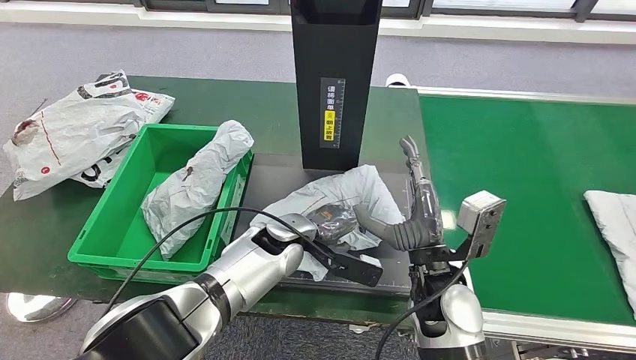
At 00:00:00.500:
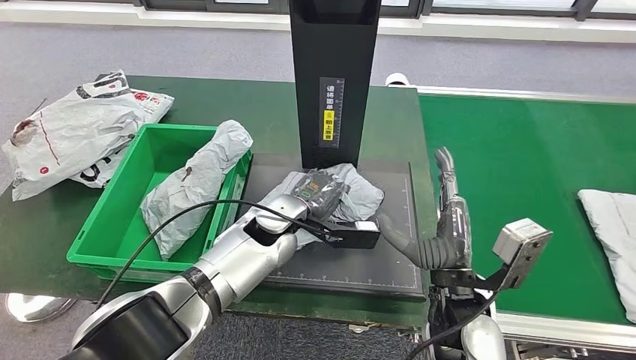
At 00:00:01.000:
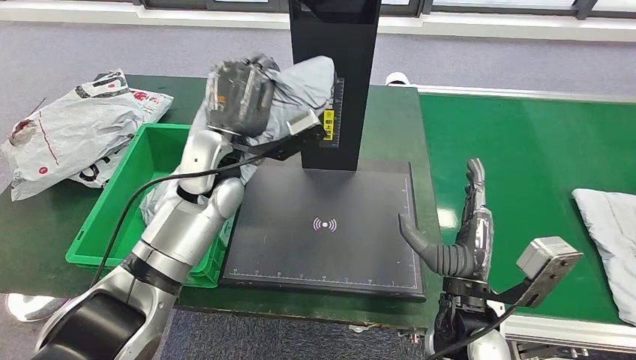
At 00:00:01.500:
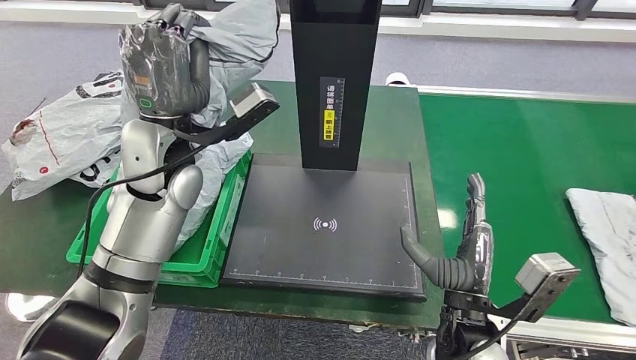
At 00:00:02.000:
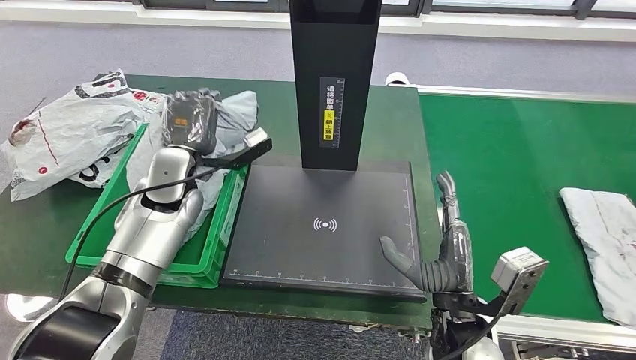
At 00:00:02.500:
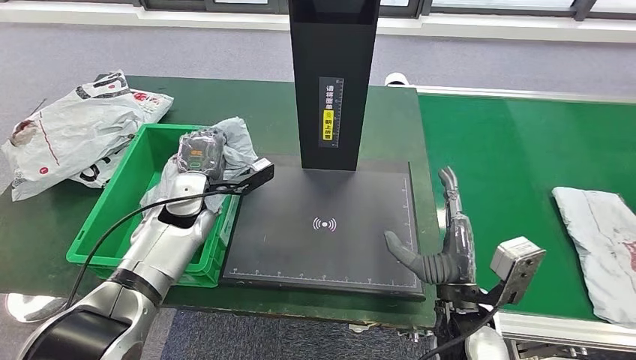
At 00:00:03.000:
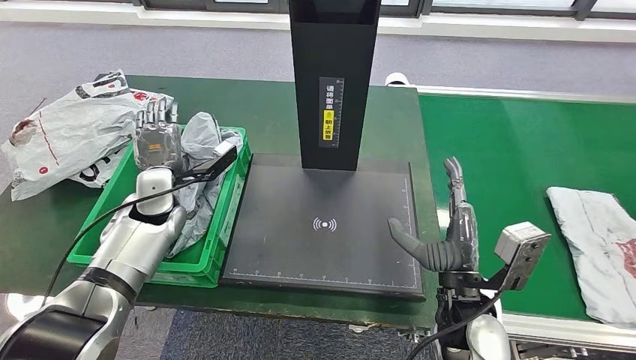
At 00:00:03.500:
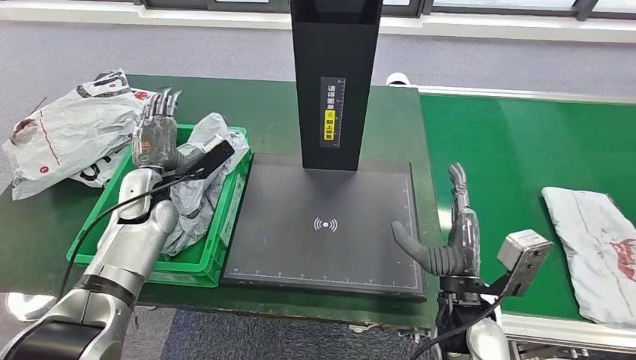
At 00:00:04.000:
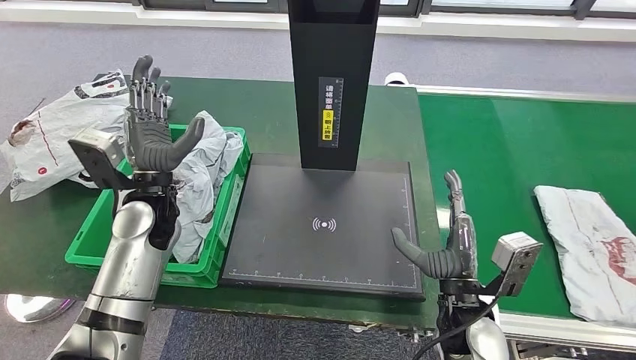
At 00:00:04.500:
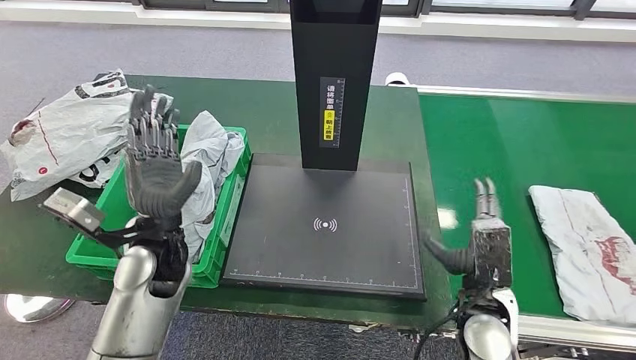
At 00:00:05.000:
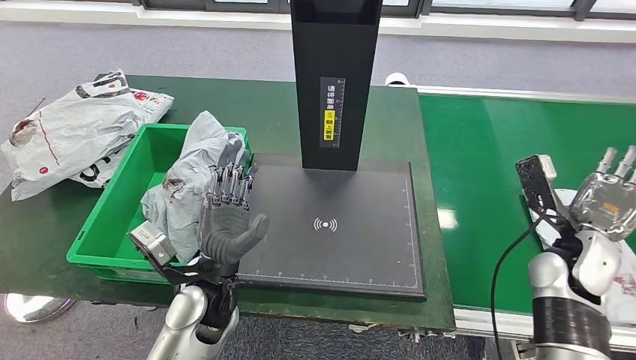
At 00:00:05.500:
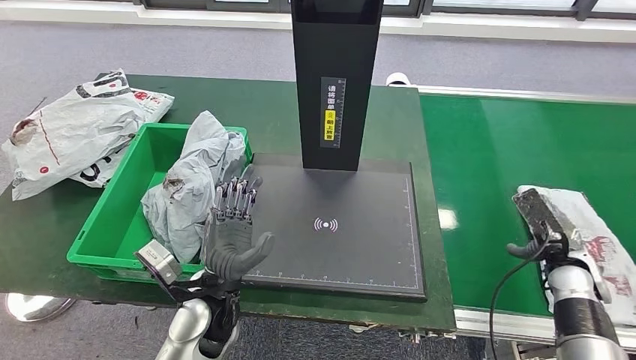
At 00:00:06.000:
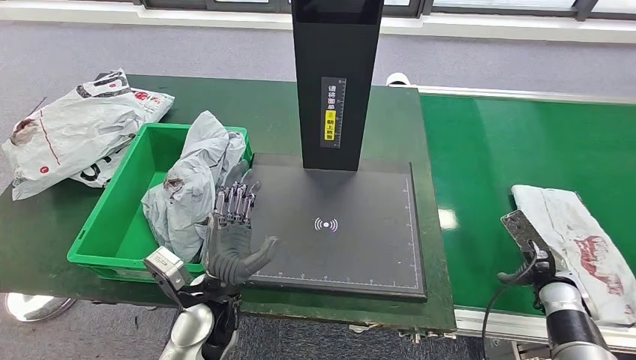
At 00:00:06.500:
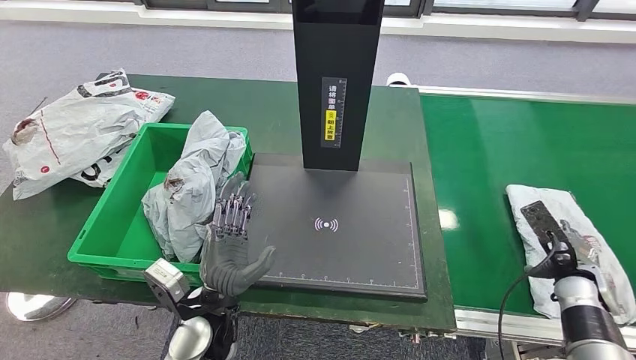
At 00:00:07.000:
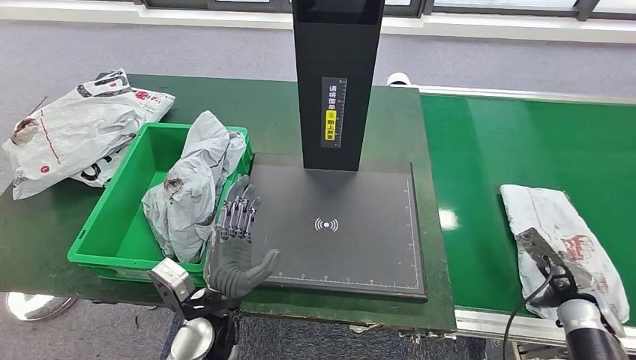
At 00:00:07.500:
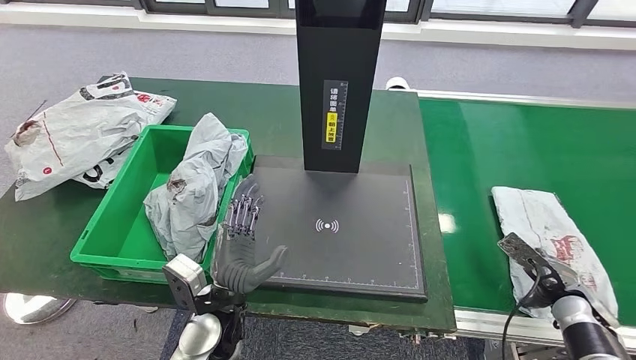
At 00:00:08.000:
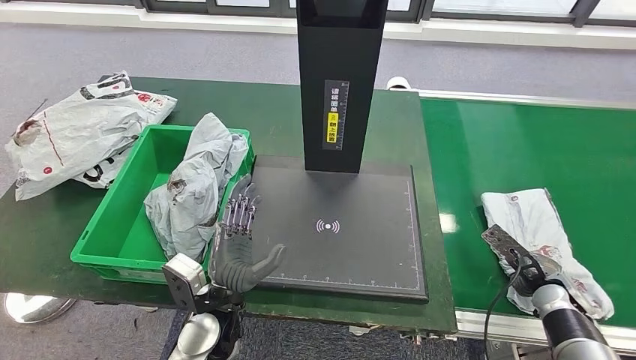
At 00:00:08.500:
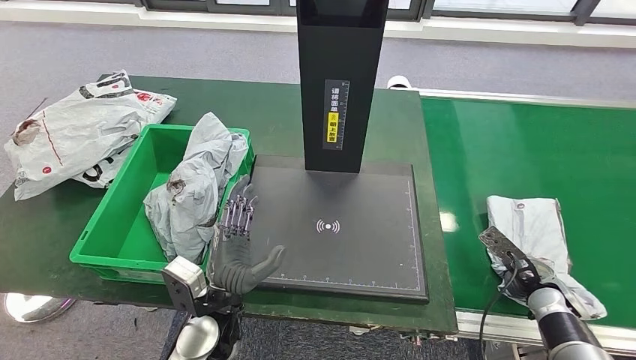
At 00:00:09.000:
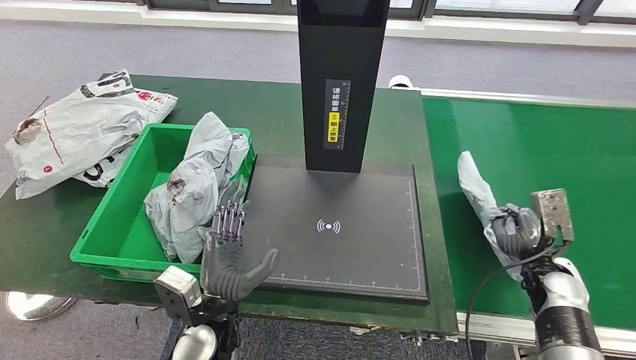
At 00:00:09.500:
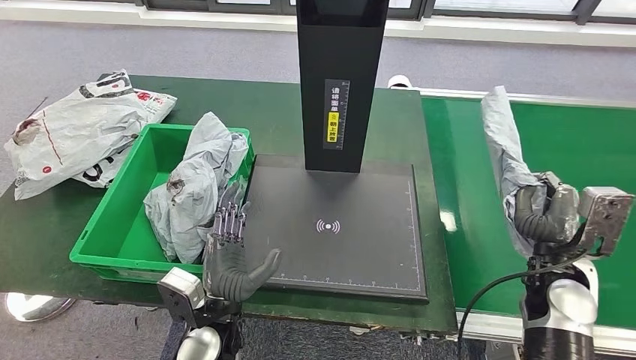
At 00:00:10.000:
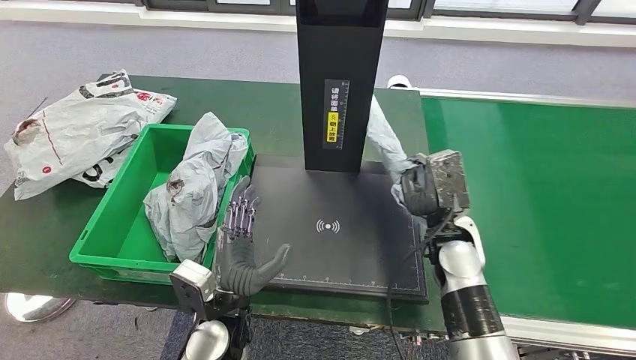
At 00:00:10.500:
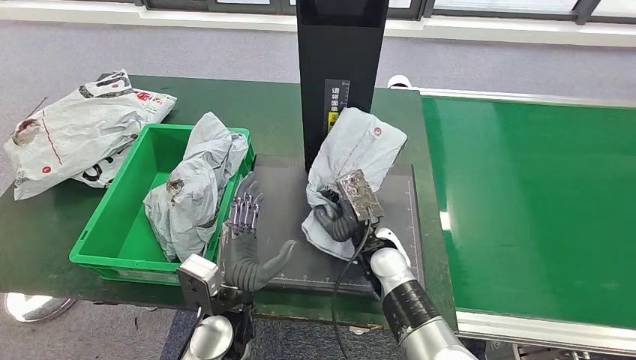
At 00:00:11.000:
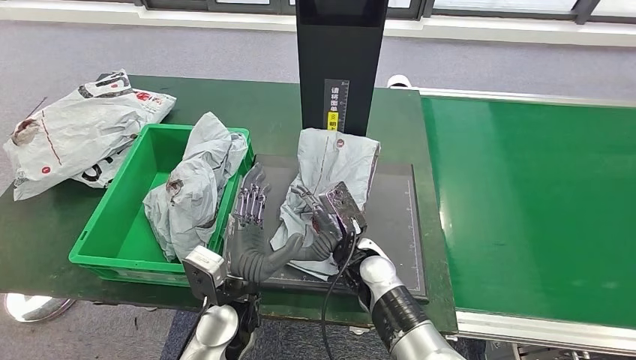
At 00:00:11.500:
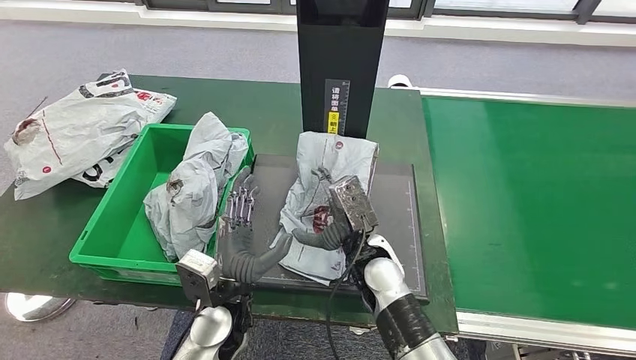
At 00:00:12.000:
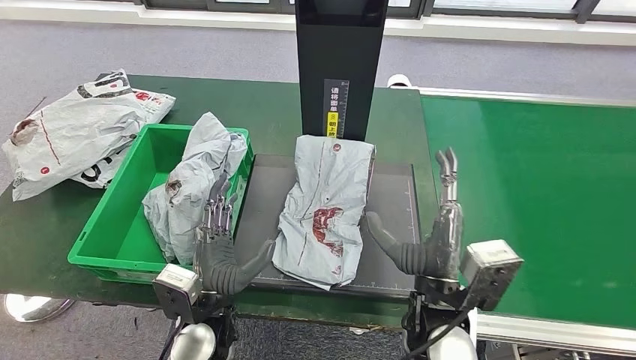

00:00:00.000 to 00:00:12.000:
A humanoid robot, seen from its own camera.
Step, 00:00:01.000 to 00:00:04.000: Place the parcel into the delivery box.
Step, 00:00:04.500 to 00:00:09.500: Pick up the parcel from the conveyor belt.

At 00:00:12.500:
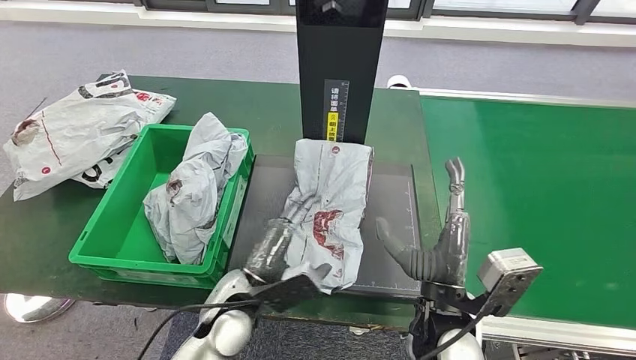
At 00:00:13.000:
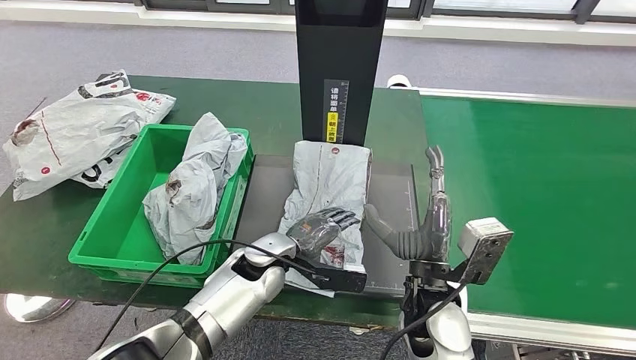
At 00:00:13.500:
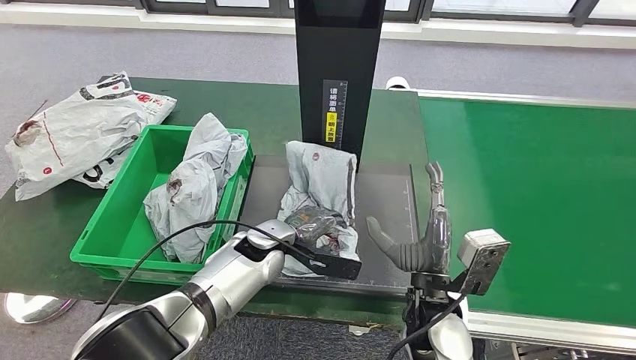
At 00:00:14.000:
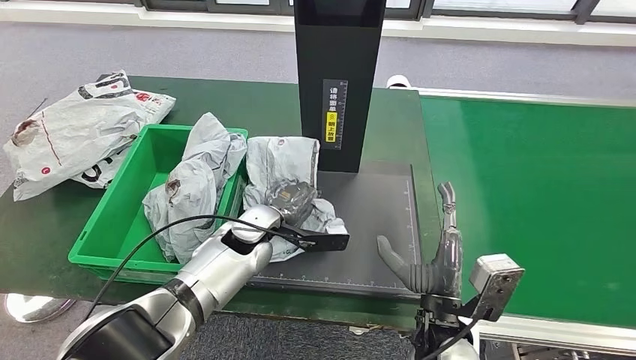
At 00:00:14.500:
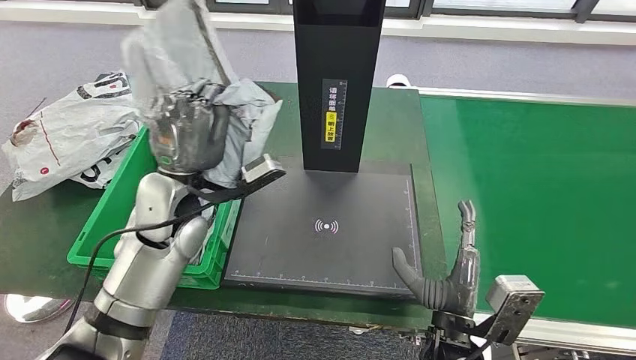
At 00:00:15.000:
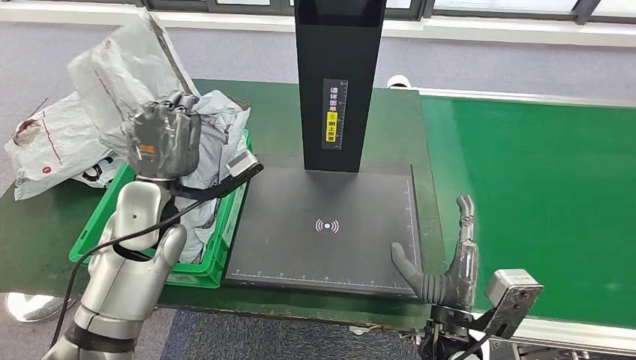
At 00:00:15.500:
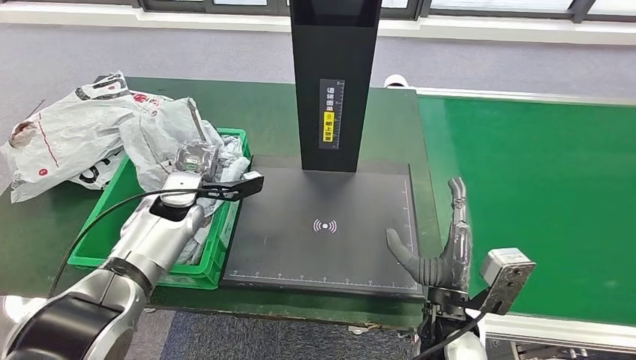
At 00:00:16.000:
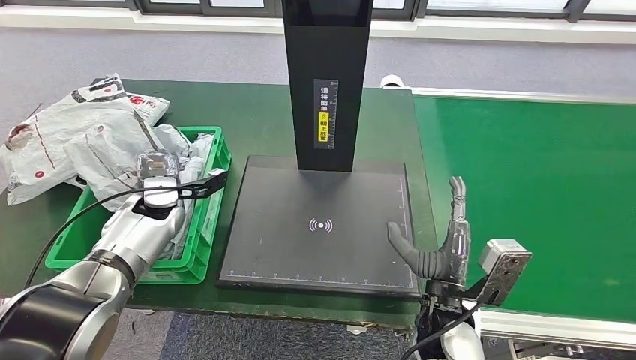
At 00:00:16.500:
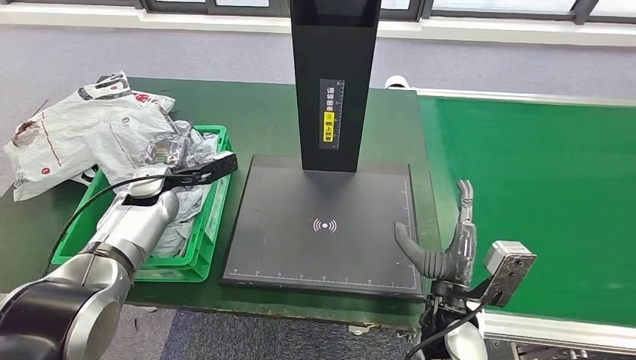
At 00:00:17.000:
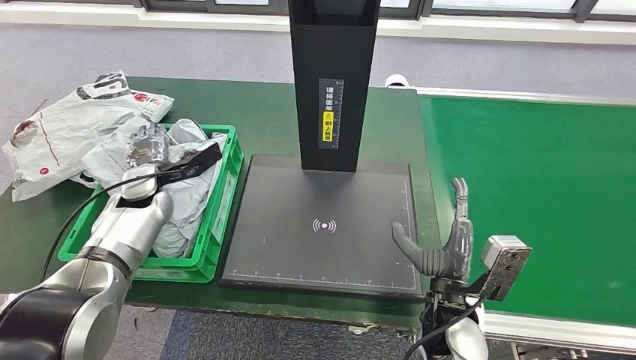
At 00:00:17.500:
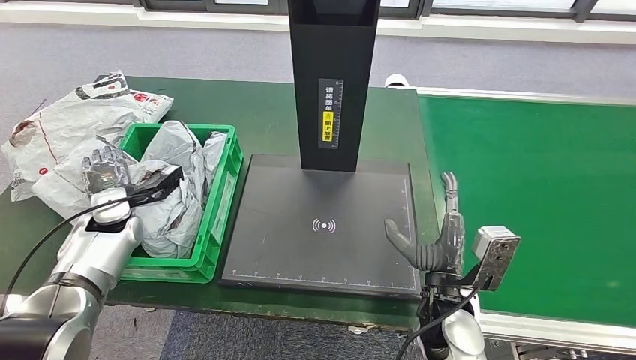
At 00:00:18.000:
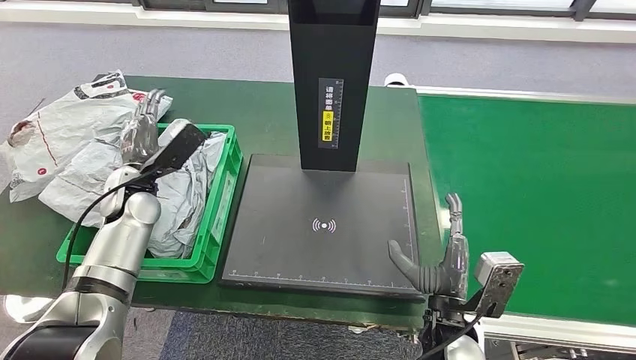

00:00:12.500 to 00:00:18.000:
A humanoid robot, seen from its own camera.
Step, 00:00:12.500 to 00:00:14.000: Pick up the parcel from the inbound machine.
Step, 00:00:14.500 to 00:00:18.000: Place the parcel into the delivery box.
